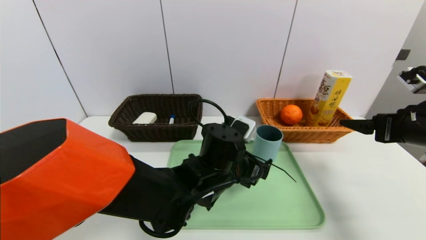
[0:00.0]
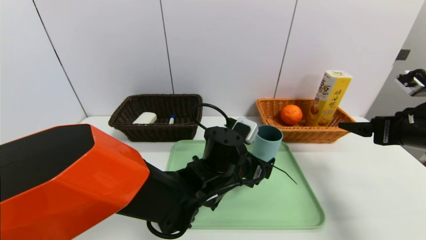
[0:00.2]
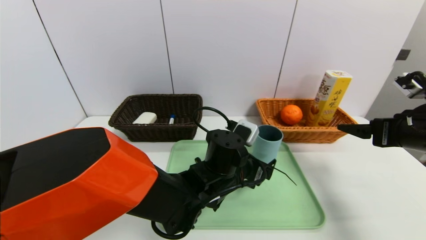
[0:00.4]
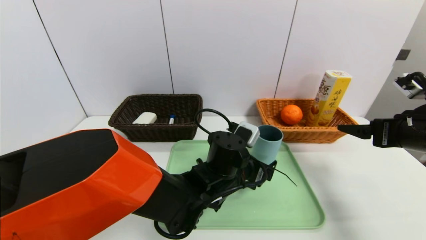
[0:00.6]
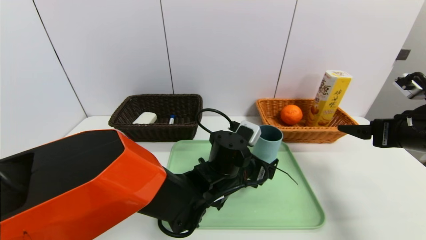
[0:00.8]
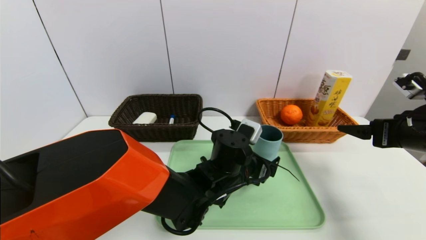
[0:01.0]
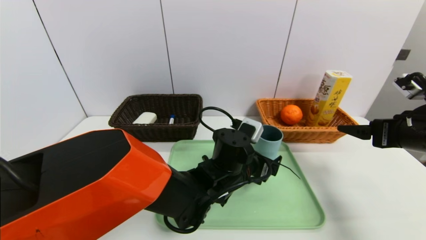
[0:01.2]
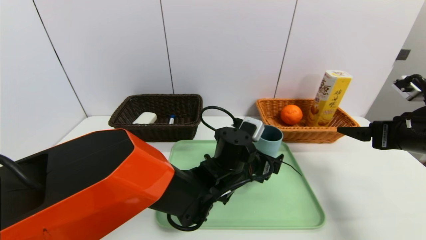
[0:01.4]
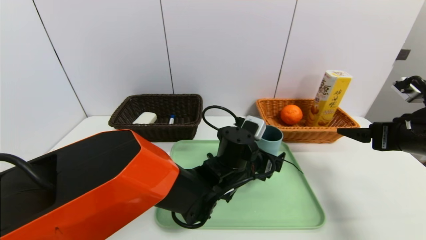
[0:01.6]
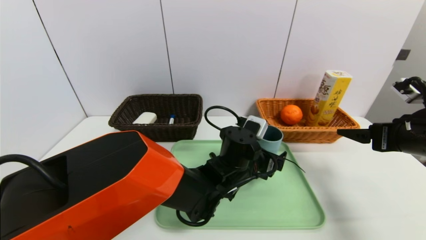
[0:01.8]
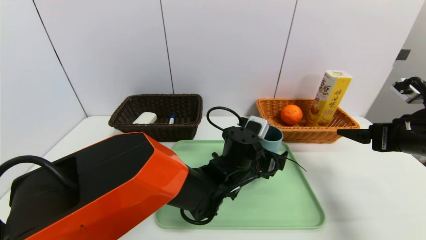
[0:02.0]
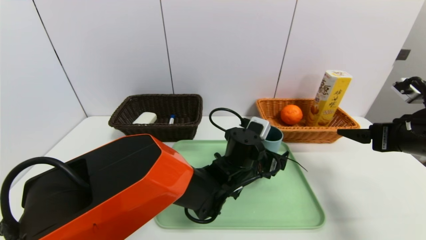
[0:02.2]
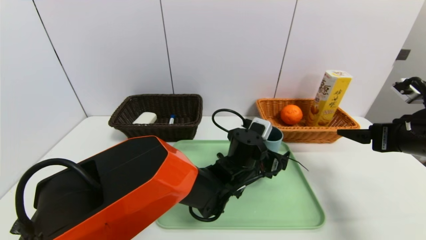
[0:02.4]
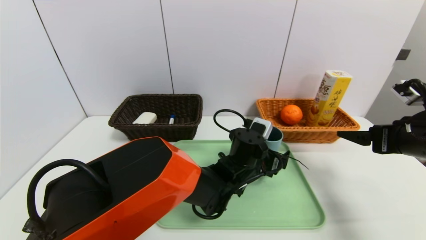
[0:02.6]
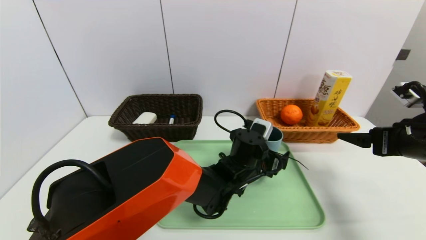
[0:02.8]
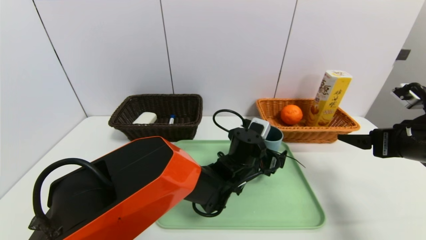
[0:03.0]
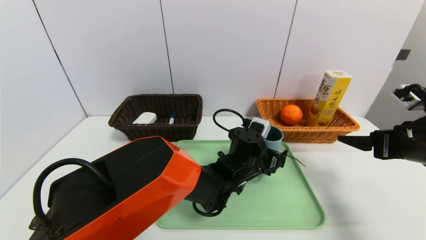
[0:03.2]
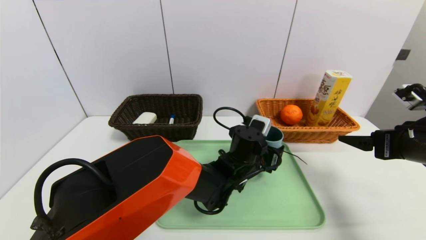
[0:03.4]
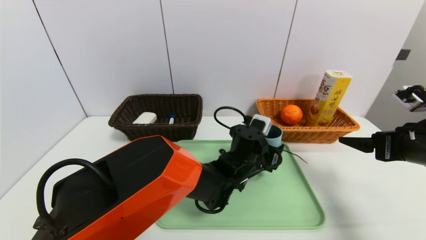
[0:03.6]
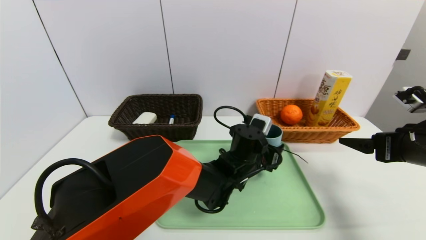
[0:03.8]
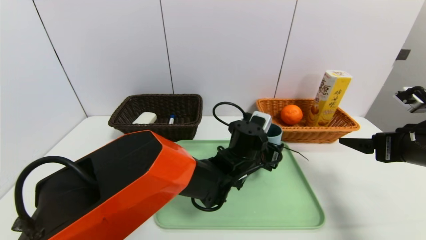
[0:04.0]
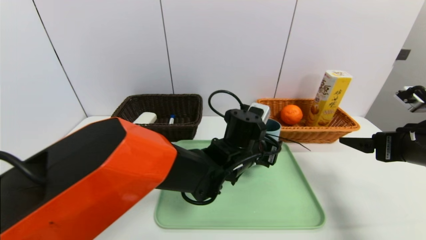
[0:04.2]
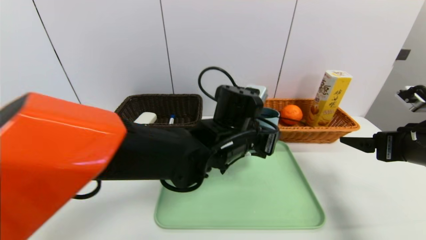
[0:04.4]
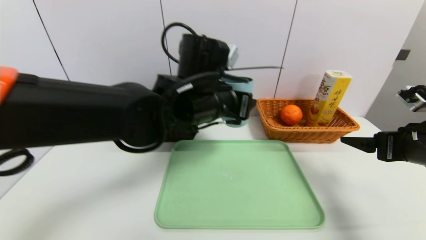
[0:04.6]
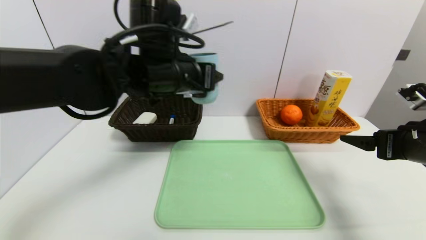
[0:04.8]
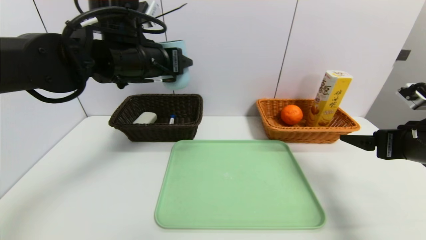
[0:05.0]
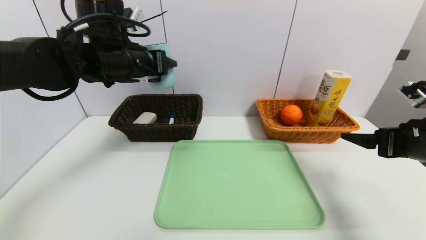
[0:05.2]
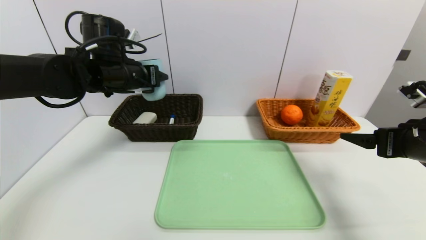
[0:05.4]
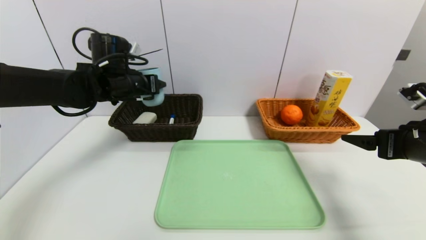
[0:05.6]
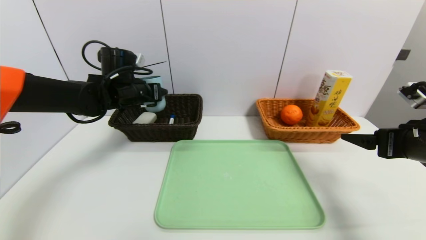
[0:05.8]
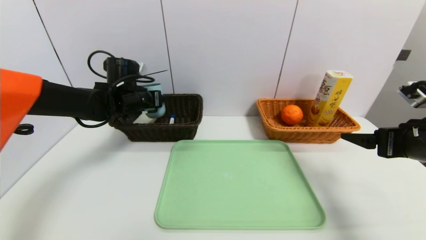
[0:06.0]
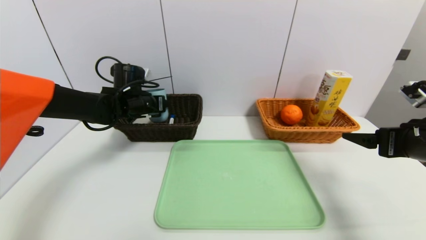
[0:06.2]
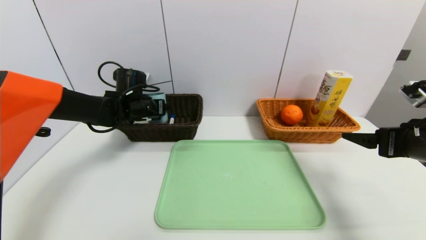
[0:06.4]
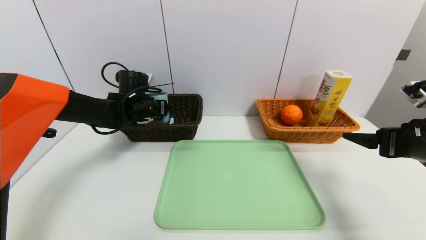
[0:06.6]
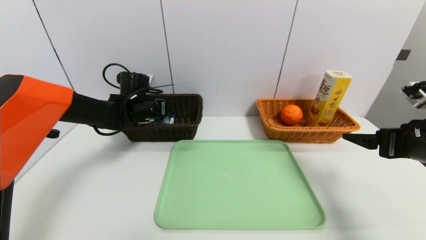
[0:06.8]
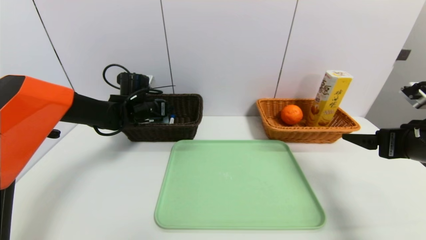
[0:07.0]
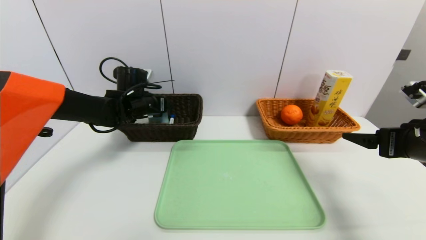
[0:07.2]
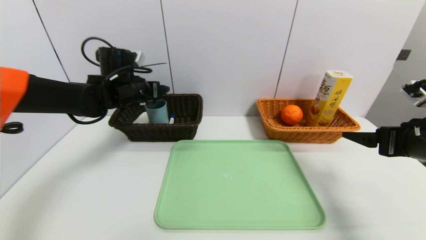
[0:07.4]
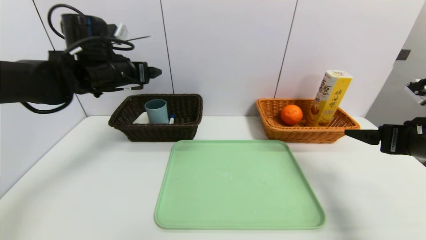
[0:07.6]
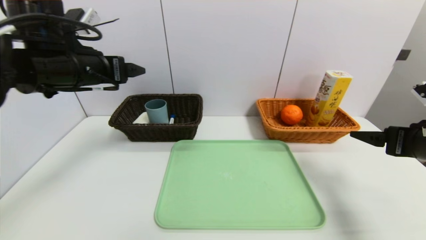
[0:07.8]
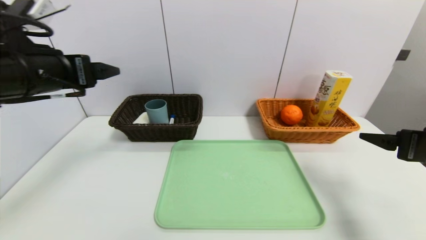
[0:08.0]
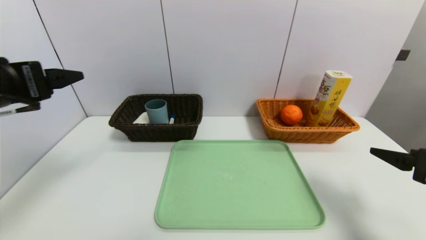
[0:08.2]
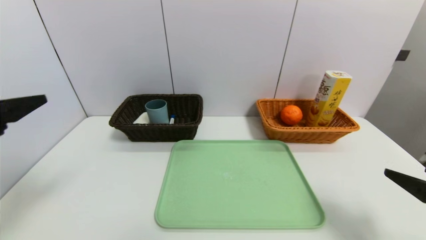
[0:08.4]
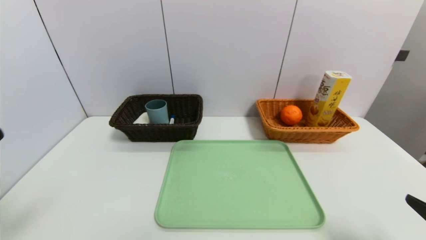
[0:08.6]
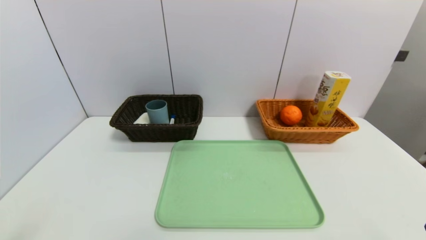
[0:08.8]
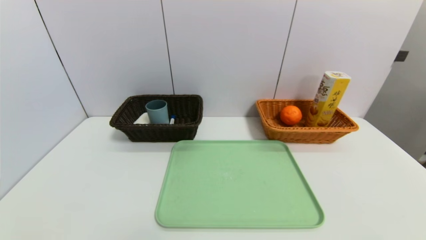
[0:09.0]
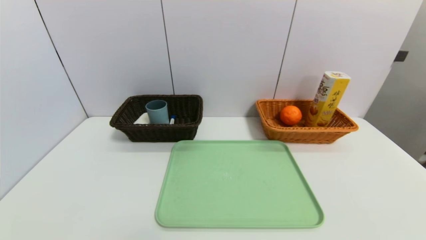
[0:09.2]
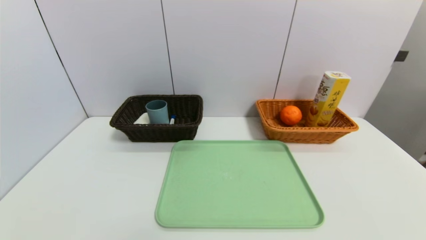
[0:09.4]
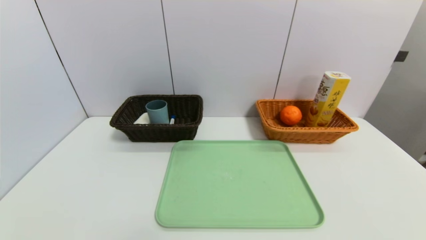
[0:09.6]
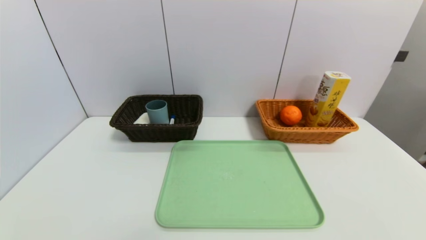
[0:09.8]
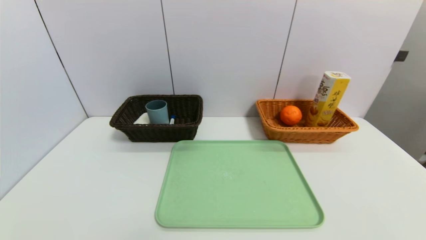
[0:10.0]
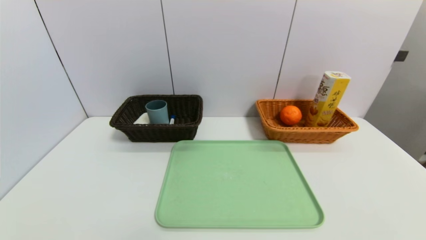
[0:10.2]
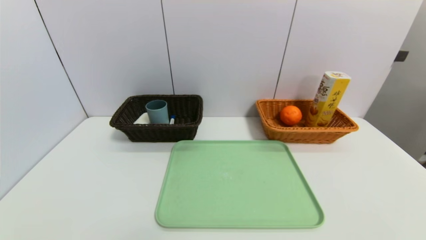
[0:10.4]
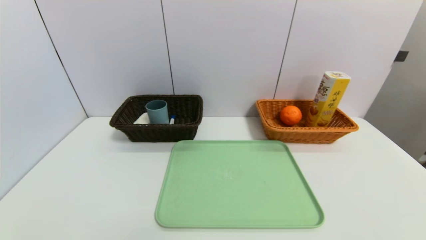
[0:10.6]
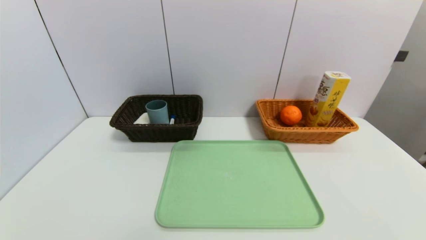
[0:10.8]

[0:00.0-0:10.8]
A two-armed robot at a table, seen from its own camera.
Task of the whole recording: place the food in the right basket with the right gripper, and place the non food items in the left basket with the left gripper.
Step, 0:00.0 to 0:07.6: Grasp the blue cup and put it in the left basket.
0:01.6 to 0:03.0: The grippers make only small movements.
0:03.0 to 0:04.6: The left gripper goes about 20 cm upward and to the left, and closes its fingers.
0:04.6 to 0:06.2: The left gripper shifts approximately 25 cm to the left and forward.
0:06.2 to 0:07.8: The left gripper shifts roughly 20 cm backward and upward.
0:07.8 to 0:09.2: The right gripper moves backward and downward, roughly 25 cm. Meanwhile the left gripper travels backward and downward by some 40 cm.

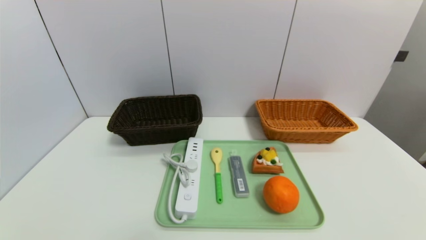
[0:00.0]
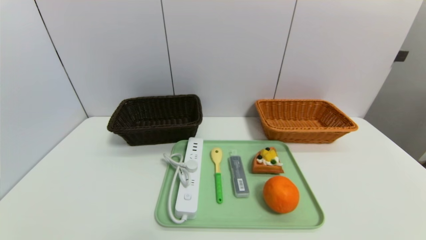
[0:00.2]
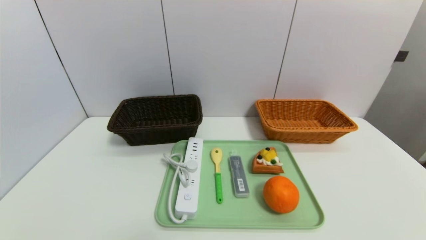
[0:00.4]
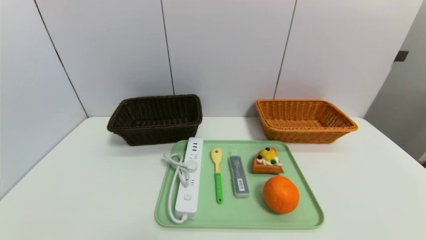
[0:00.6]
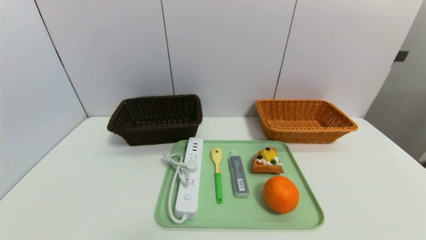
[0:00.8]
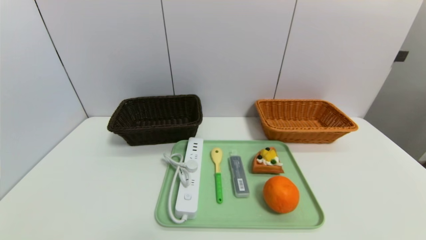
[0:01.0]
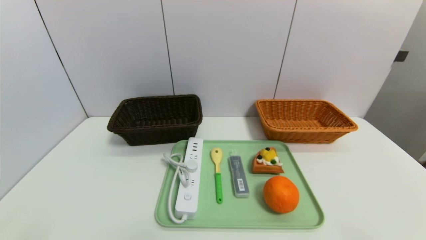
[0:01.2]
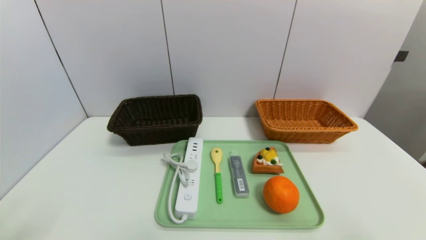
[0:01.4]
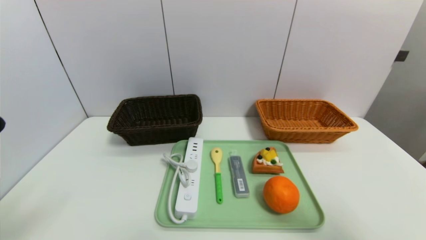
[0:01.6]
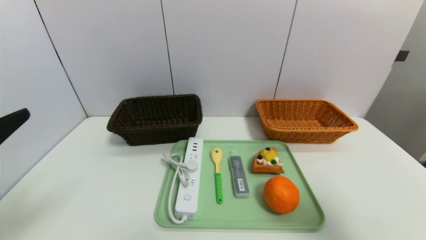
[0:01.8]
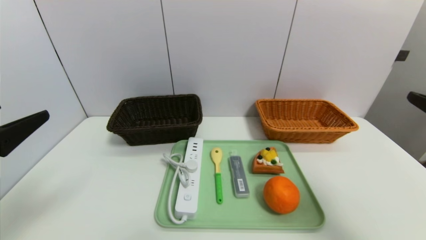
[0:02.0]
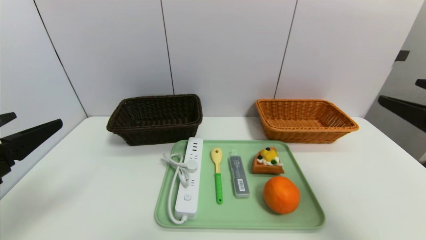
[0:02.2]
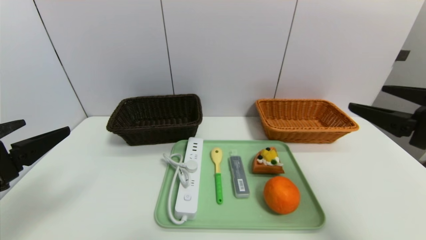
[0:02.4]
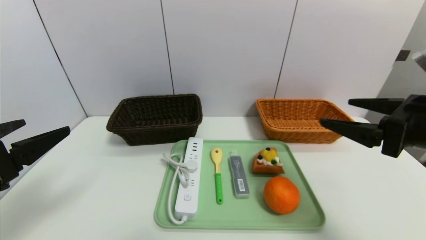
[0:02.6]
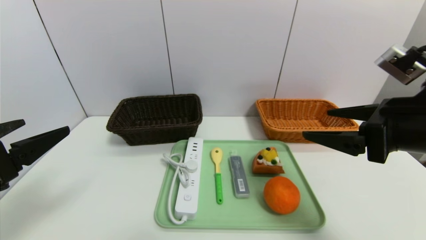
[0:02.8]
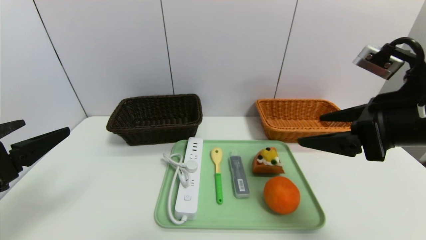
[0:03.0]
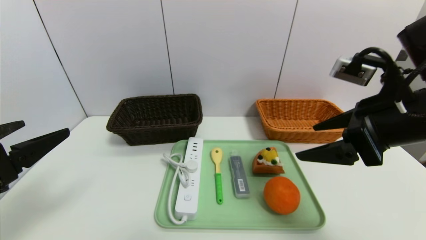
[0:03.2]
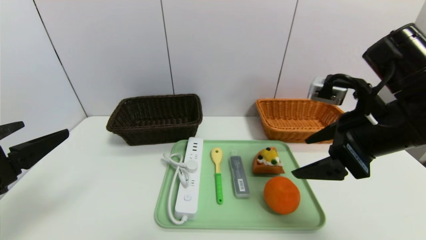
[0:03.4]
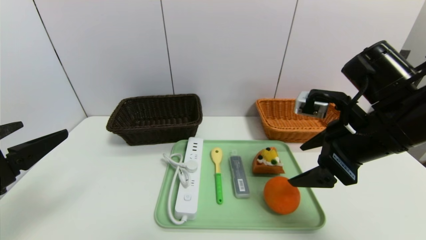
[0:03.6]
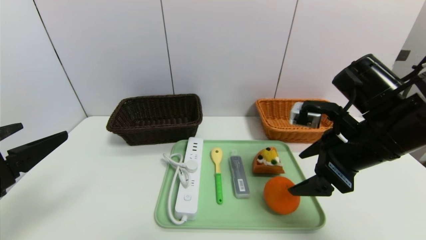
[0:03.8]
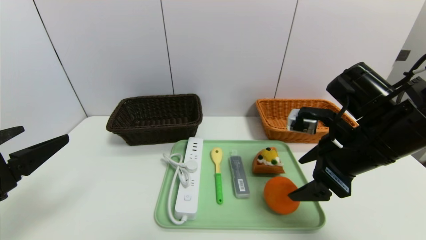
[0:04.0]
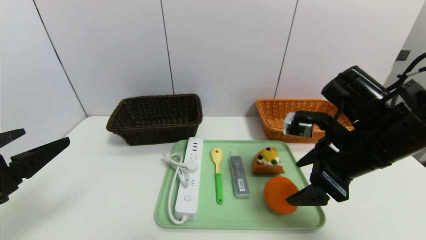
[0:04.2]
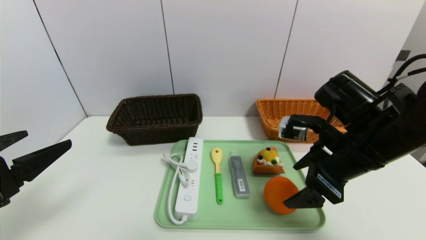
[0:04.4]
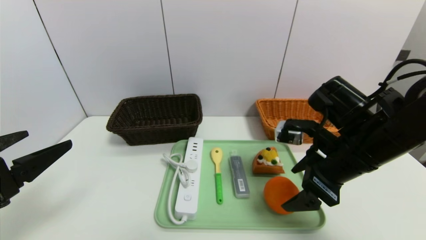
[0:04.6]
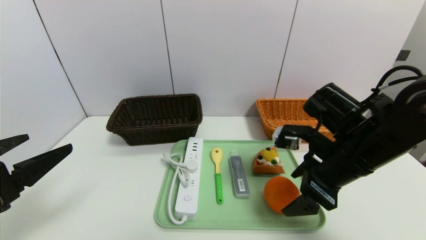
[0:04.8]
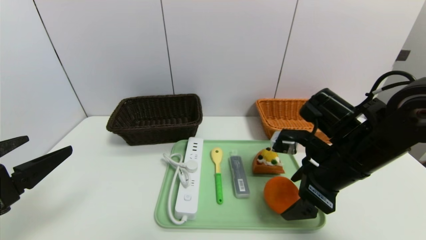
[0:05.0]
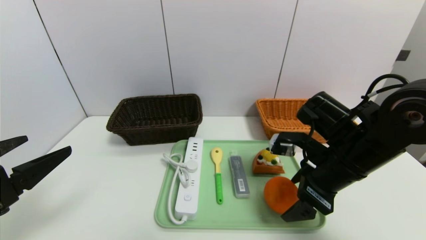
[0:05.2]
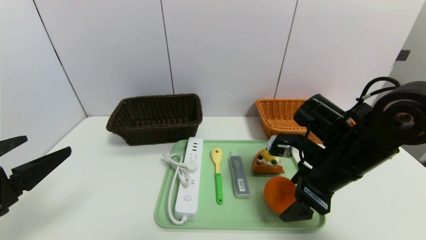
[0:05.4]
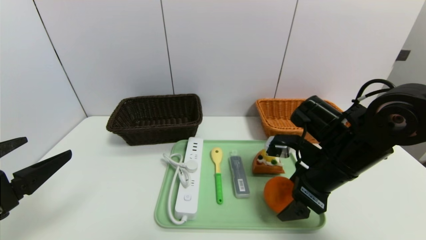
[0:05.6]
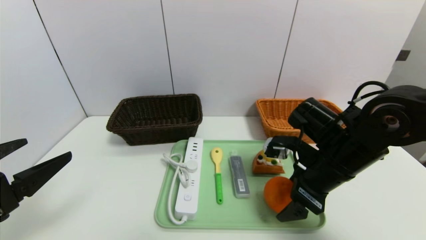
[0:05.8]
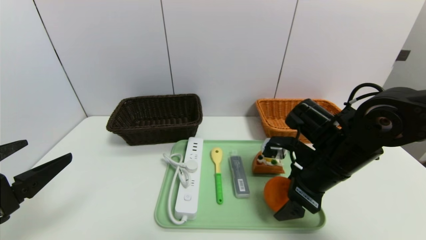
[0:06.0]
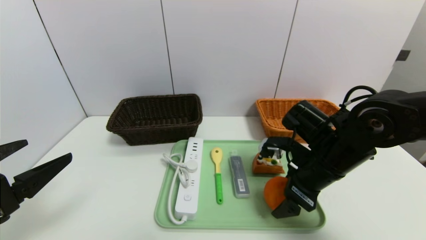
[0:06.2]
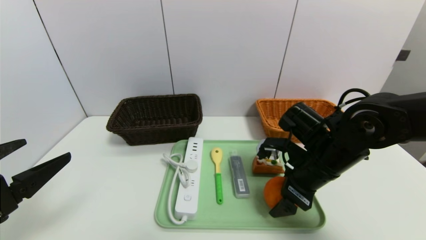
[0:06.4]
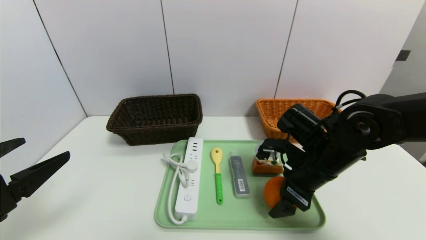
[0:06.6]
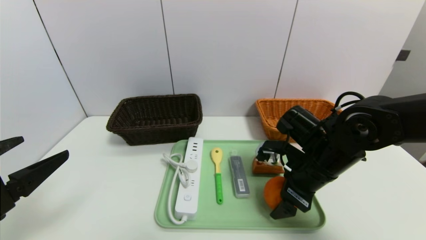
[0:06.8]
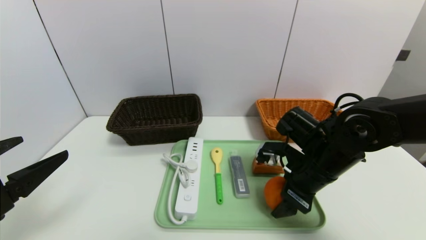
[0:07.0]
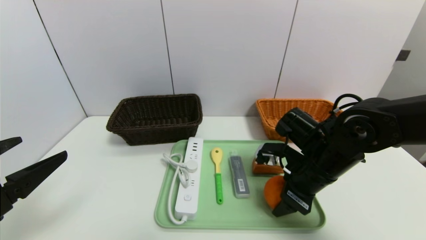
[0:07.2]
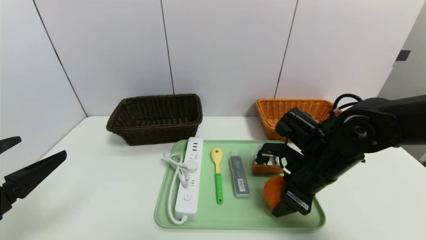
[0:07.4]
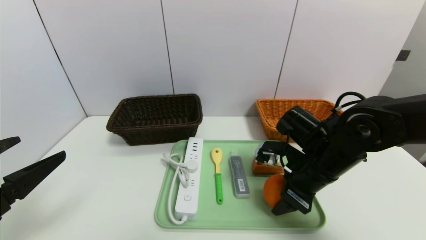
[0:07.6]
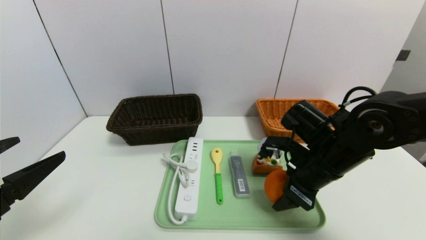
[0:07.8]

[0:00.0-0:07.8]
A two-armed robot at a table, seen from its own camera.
Task of the whole recording: place the food in the right basket with the right gripper, and place the non food items in the left basket with the left gripper.
0:00.0 to 0:01.6: Both grippers travel together upward, approximately 20 cm.
0:01.6 to 0:03.2: The right gripper shifts roughly 20 cm forward and to the left, while the left gripper heads forward, covering about 5 cm.
0:03.2 to 0:04.6: The right gripper travels downward by roughly 10 cm.
0:04.6 to 0:06.2: The right gripper moves about 5 cm.
0:06.2 to 0:07.8: The right gripper closes its fingers.
